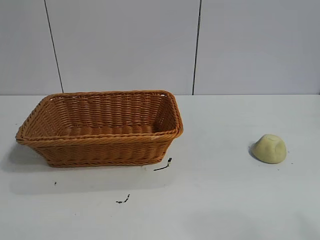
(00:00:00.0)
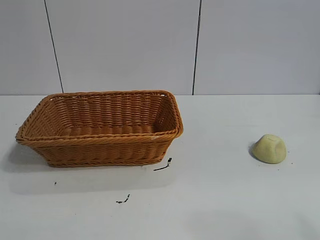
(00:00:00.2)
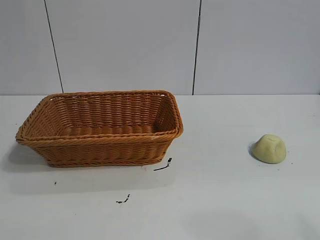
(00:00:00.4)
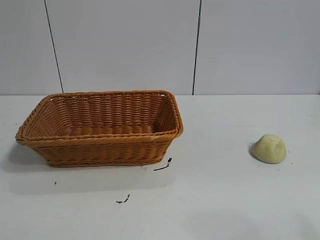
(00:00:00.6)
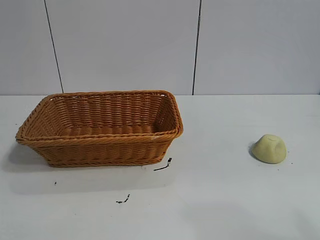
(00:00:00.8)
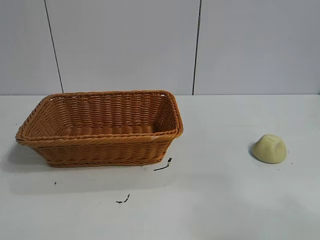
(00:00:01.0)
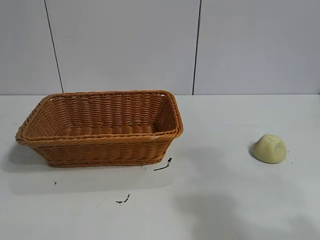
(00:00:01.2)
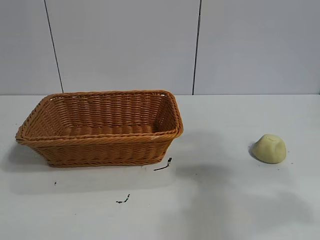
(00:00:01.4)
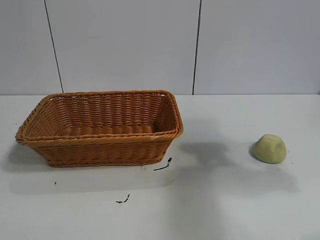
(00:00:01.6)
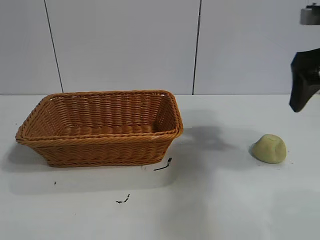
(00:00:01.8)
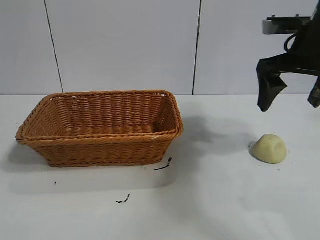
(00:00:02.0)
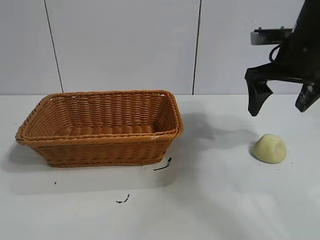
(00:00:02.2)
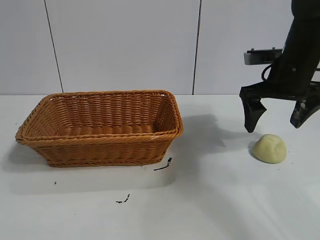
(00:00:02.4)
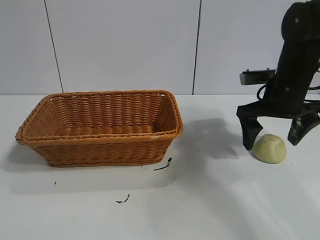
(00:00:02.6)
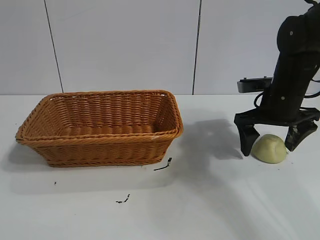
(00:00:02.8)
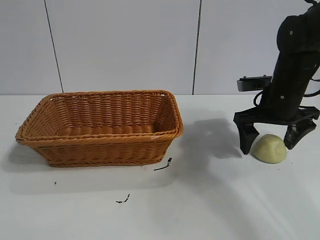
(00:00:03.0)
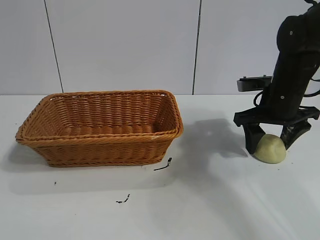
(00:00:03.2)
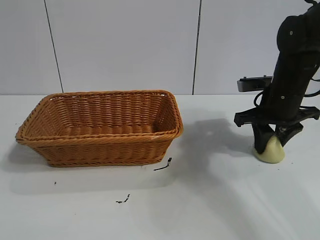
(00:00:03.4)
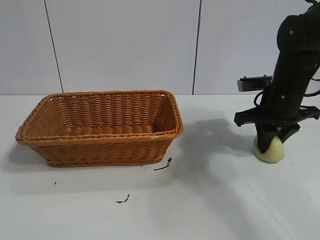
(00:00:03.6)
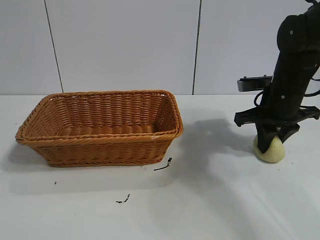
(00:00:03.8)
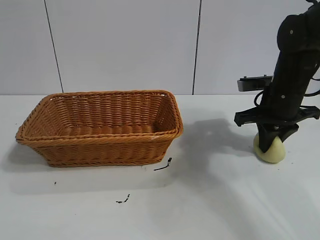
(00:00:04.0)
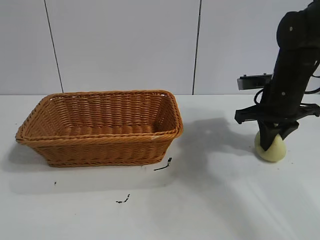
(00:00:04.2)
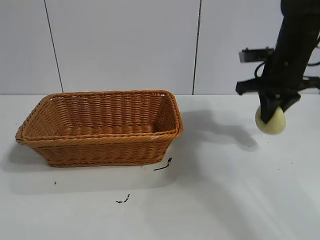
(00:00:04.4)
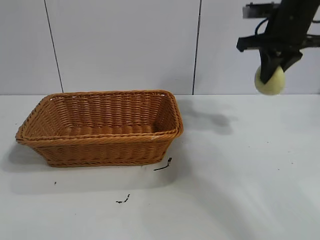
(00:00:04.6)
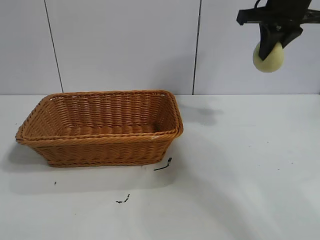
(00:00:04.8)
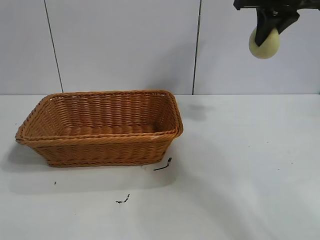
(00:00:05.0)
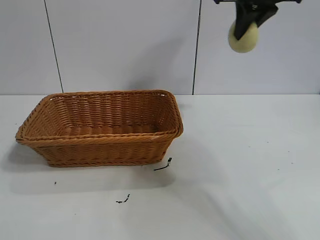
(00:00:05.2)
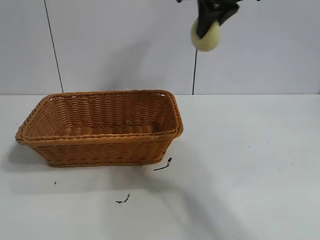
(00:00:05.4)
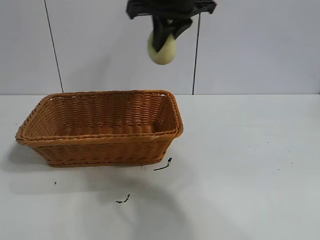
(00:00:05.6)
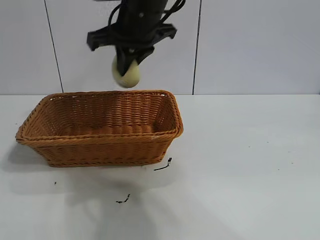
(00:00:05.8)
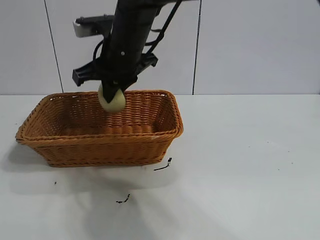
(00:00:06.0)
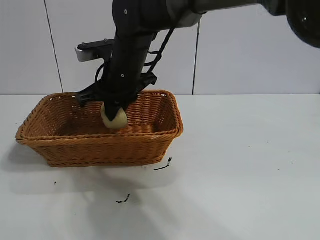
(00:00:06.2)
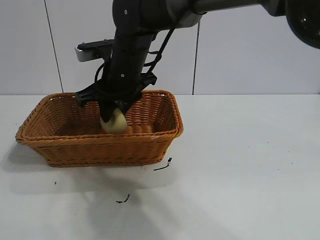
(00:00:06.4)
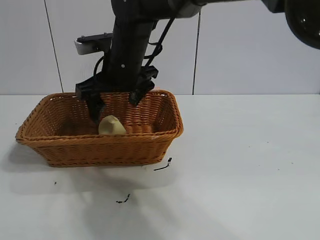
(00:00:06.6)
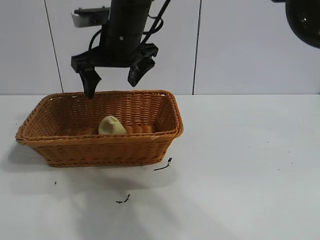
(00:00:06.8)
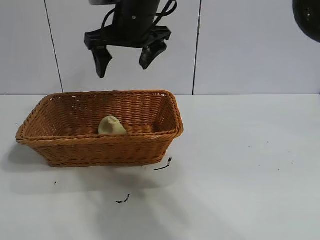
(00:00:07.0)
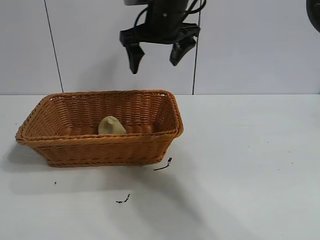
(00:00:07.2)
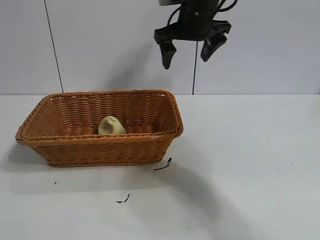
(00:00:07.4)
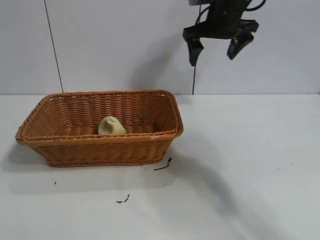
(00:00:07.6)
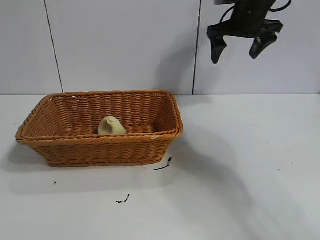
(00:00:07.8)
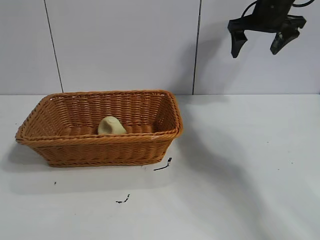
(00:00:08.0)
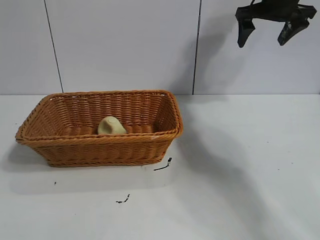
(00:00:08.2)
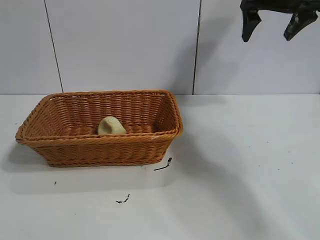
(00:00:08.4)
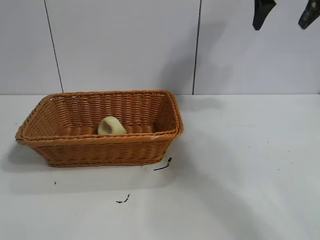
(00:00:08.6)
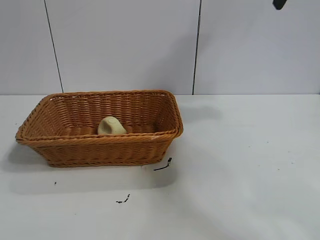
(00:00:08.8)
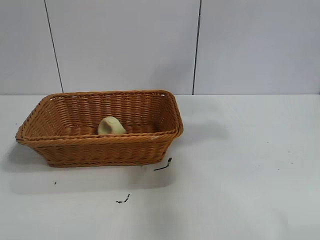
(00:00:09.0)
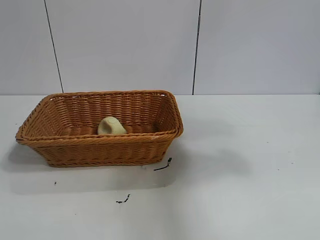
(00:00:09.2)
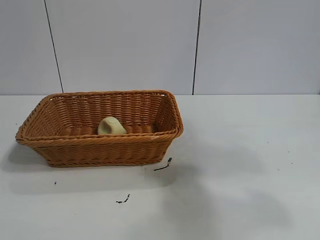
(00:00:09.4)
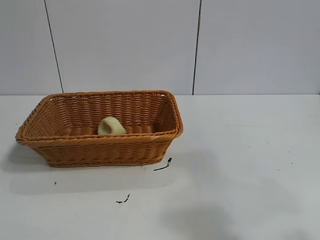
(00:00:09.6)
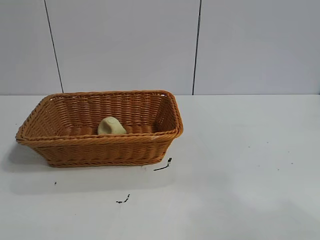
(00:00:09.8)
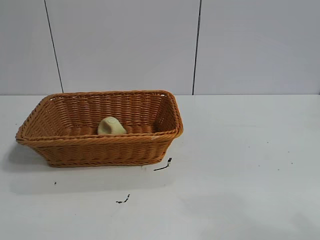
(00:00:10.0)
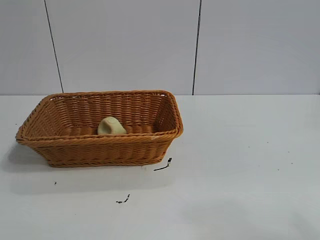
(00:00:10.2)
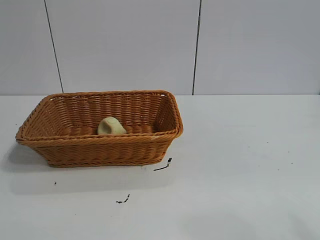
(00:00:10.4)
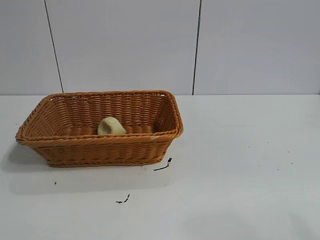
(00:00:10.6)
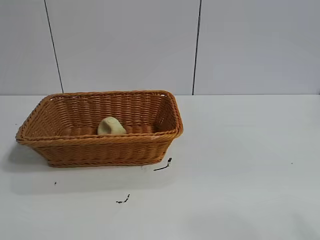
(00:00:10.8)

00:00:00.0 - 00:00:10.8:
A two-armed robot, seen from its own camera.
Task of the whole recording: pick up the egg yolk pastry and put it into the basket.
Step, 00:00:00.8 - 00:00:03.4: Grasp egg yolk pastry with right gripper.
Step, 00:00:03.6 - 00:00:06.4: Place the egg yolk pastry in the basket with right gripper.

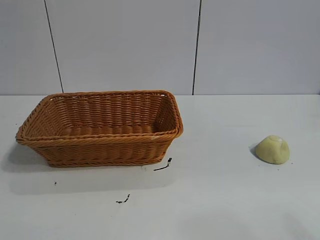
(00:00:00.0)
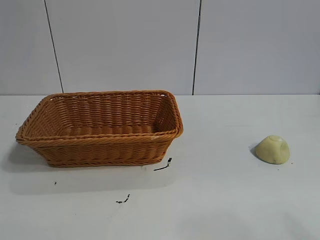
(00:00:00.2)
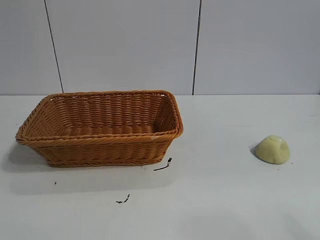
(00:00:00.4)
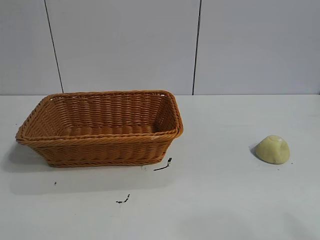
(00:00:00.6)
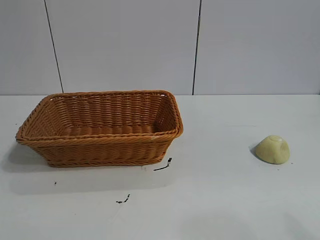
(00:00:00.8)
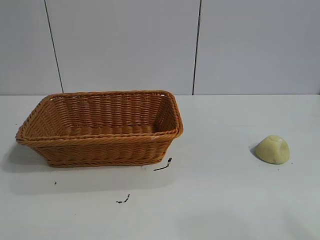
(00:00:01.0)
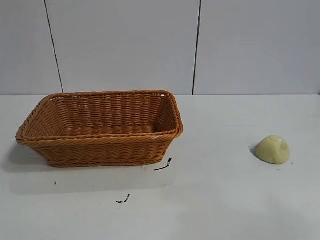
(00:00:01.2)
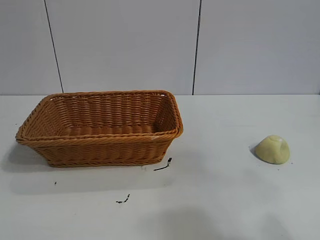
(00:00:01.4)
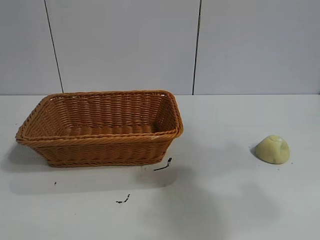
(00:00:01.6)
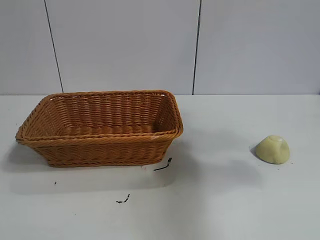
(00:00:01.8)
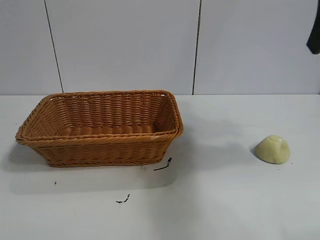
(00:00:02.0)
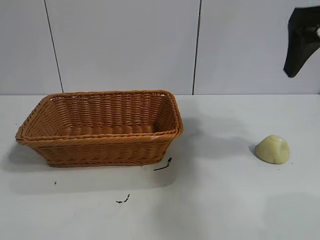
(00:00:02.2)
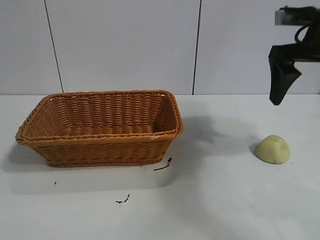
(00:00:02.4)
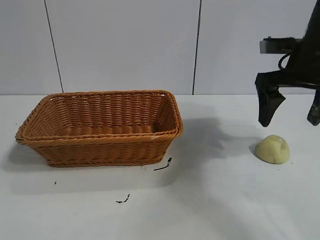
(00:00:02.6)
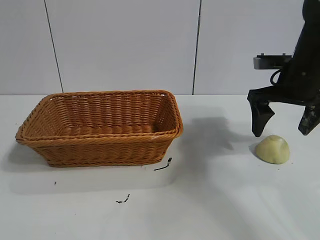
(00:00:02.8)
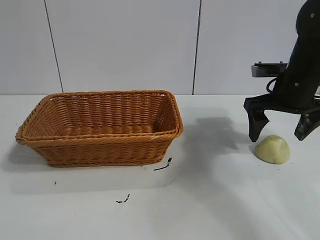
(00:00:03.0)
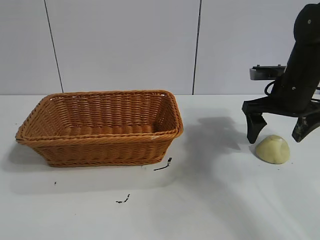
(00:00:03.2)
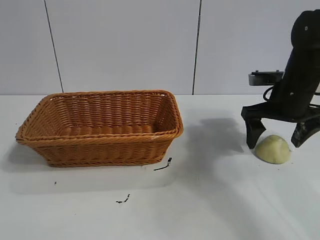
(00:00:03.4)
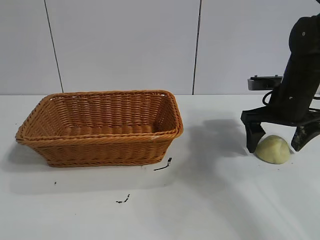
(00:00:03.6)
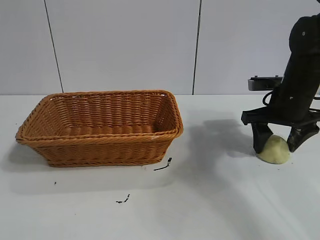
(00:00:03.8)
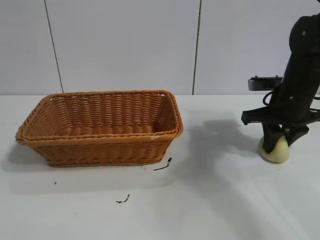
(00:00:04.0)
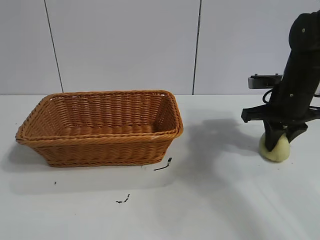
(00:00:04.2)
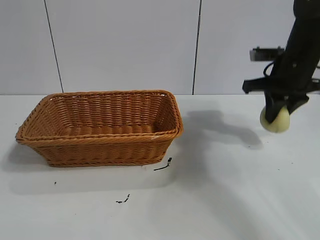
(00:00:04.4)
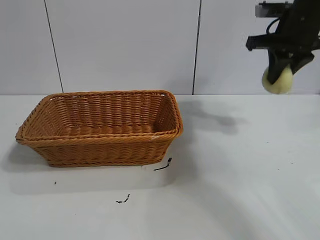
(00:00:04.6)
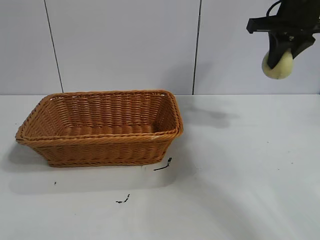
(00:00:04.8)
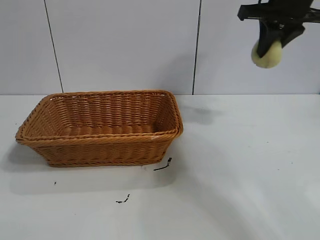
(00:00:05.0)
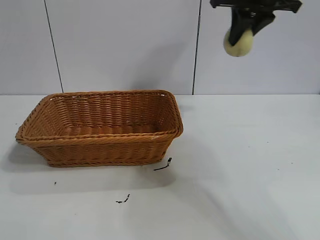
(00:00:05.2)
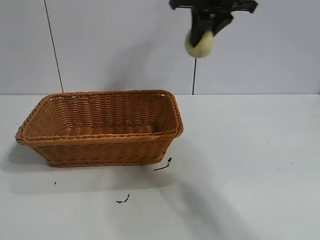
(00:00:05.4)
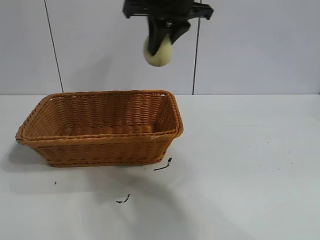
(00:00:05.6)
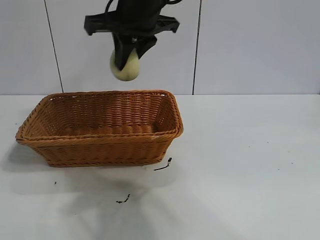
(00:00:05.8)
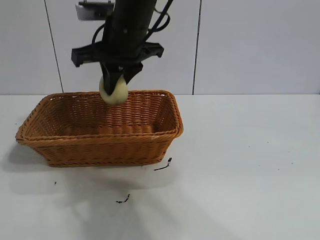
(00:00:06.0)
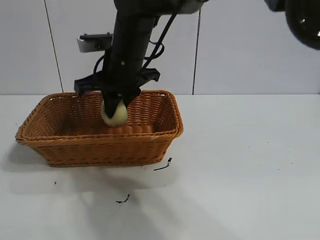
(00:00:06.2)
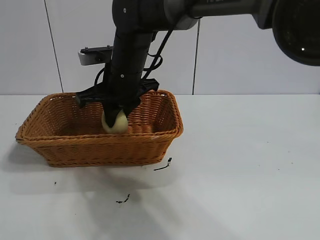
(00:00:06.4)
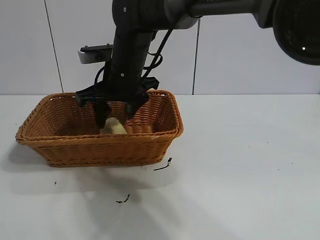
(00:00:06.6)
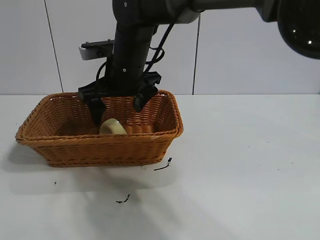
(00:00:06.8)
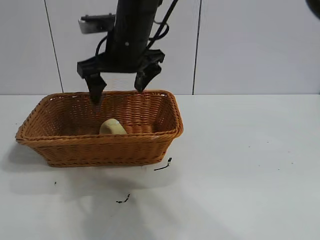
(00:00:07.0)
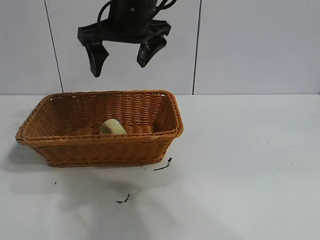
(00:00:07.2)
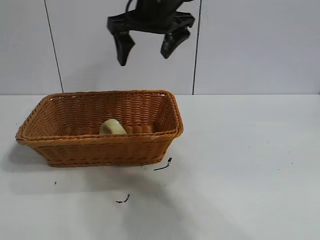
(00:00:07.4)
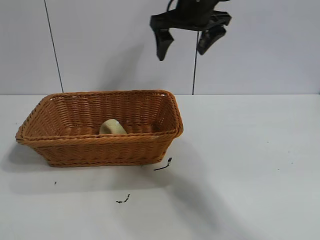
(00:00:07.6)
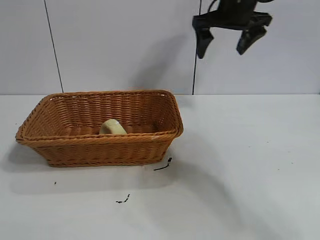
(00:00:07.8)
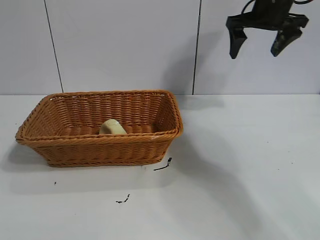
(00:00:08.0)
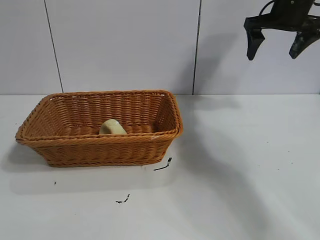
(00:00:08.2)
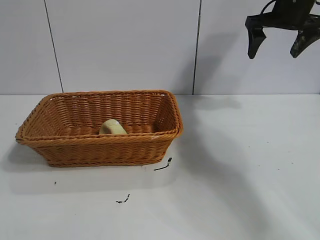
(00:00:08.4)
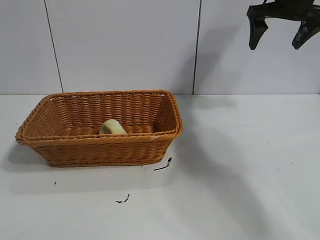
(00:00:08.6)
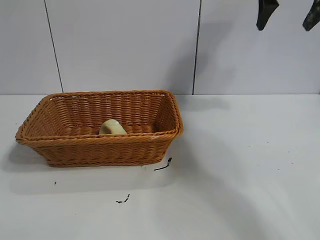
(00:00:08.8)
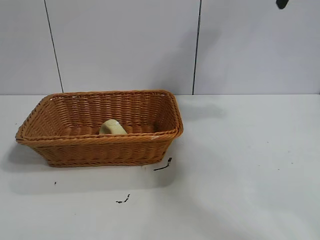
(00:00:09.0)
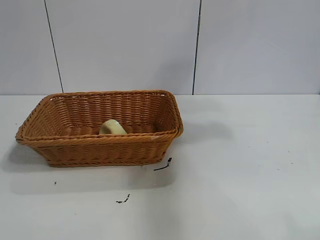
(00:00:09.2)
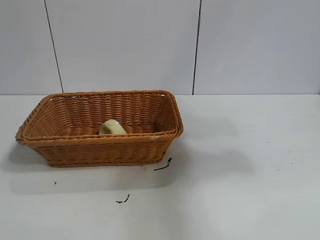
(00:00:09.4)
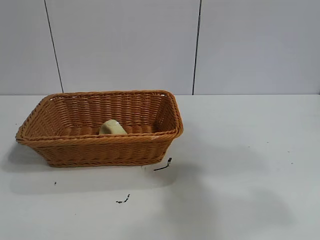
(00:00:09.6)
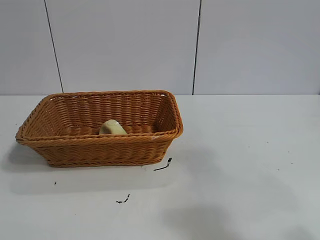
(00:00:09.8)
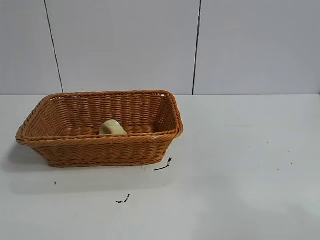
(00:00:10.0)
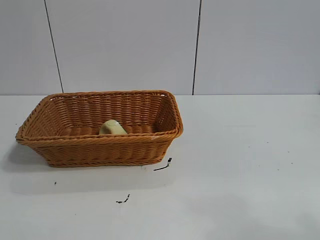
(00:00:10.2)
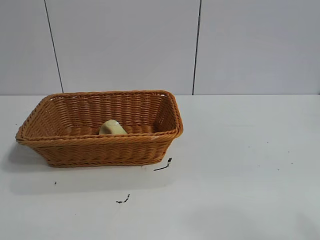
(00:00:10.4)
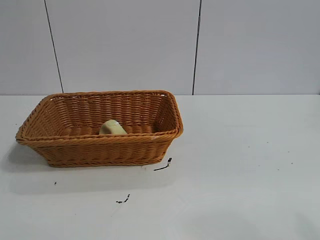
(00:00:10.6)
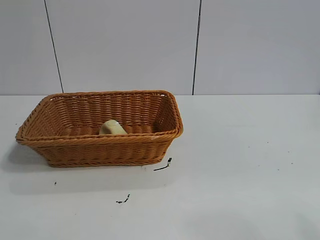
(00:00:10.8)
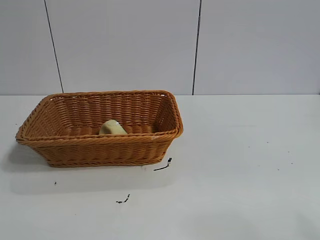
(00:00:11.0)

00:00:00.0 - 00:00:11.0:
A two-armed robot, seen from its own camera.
Task of the whole recording: pick up the egg yolk pastry and put it into the basket.
Step, 00:00:01.0 - 00:00:04.0: Grasp egg yolk pastry with right gripper.
Step, 00:00:04.2 - 00:00:06.6: Place the egg yolk pastry in the basket with right gripper.
